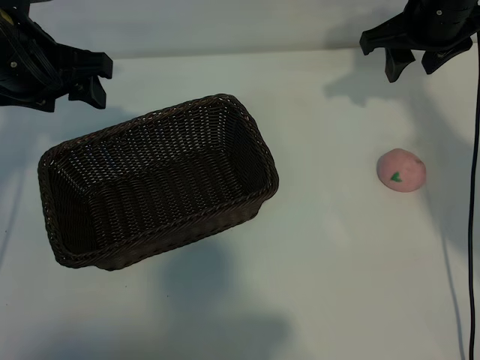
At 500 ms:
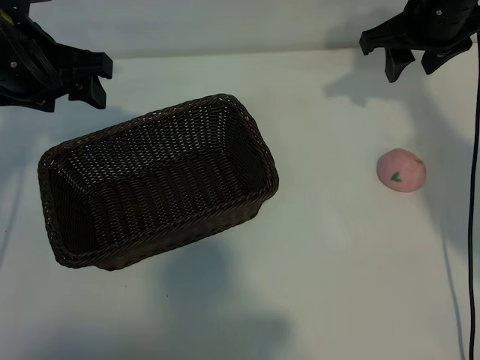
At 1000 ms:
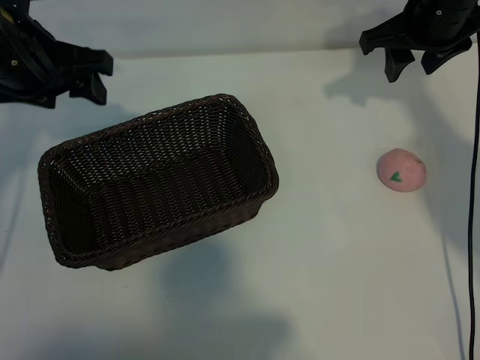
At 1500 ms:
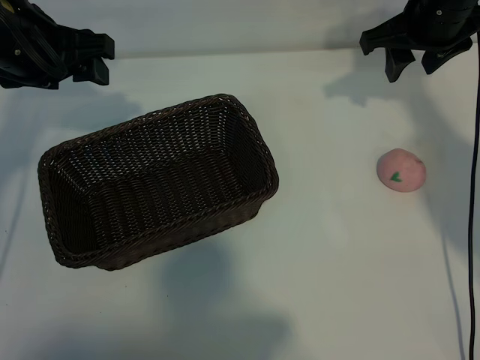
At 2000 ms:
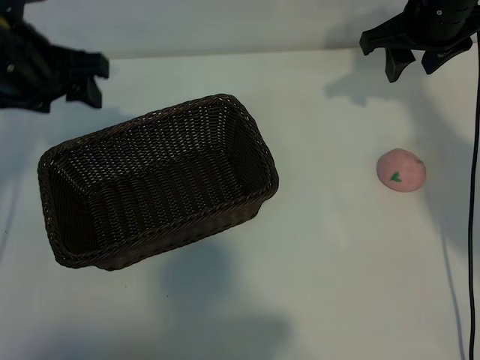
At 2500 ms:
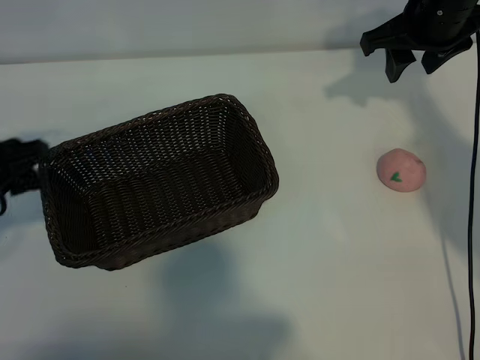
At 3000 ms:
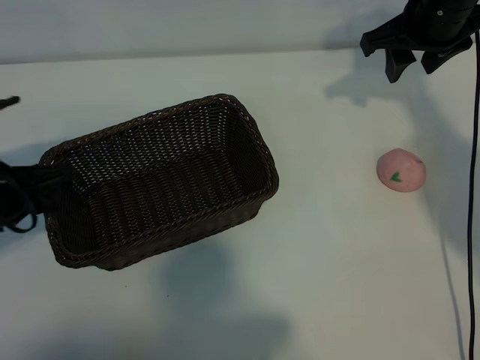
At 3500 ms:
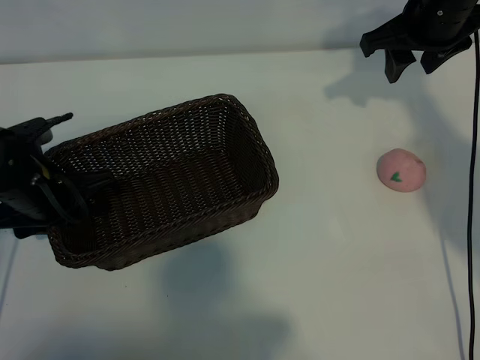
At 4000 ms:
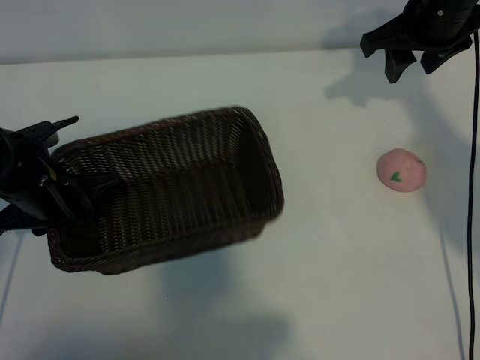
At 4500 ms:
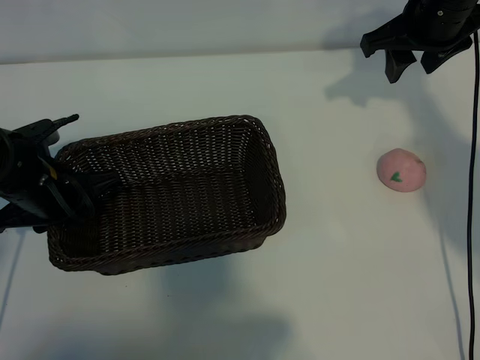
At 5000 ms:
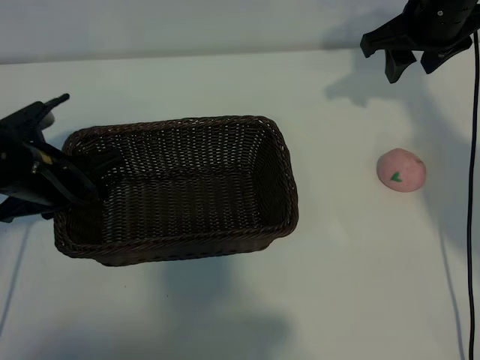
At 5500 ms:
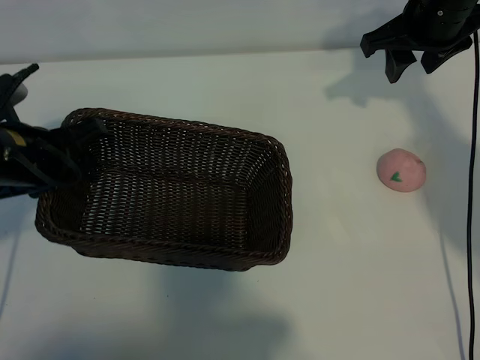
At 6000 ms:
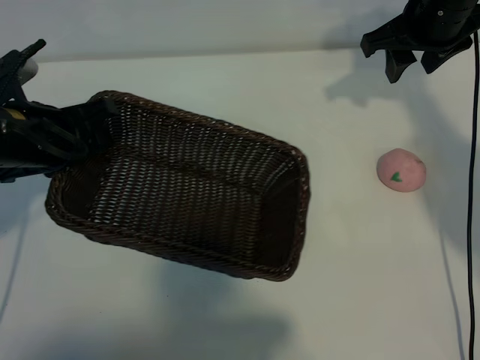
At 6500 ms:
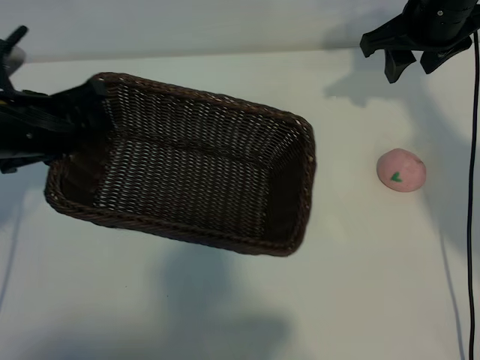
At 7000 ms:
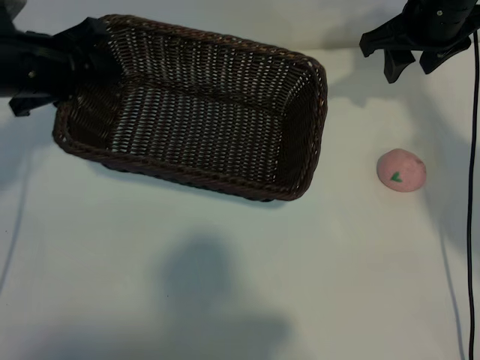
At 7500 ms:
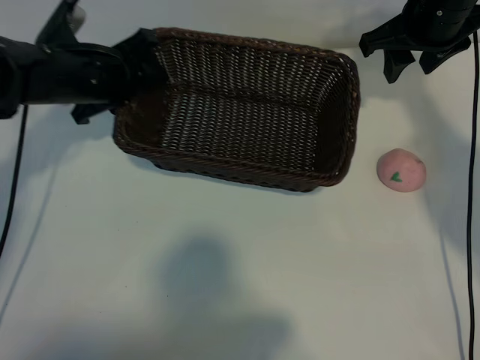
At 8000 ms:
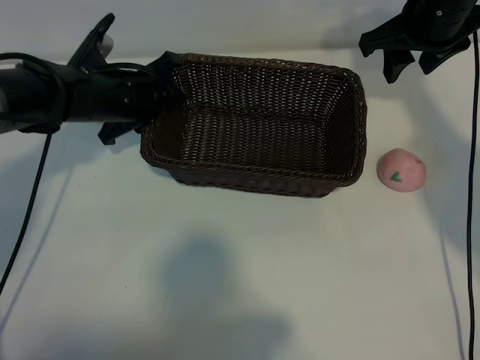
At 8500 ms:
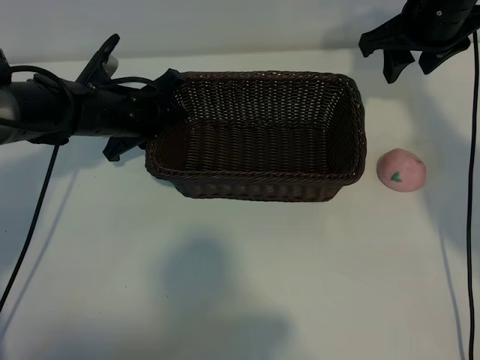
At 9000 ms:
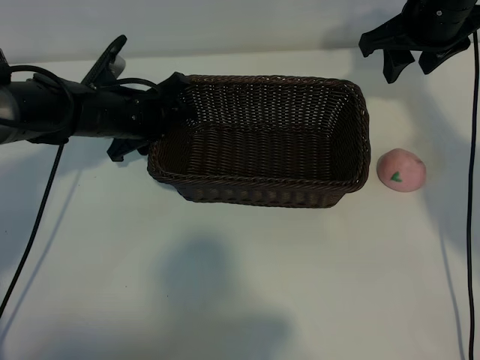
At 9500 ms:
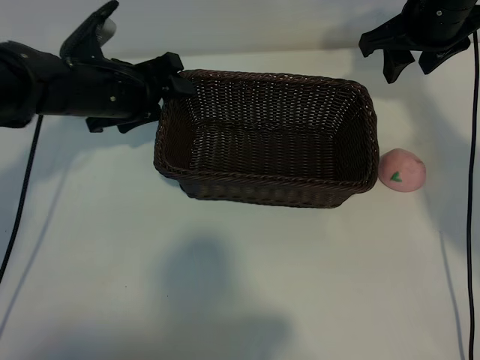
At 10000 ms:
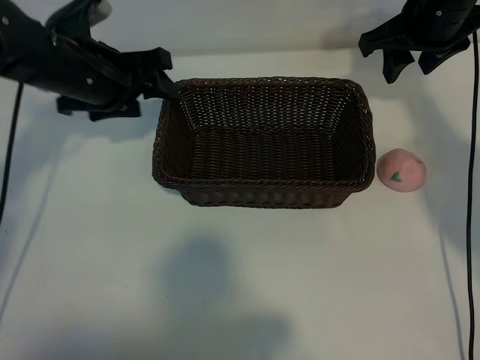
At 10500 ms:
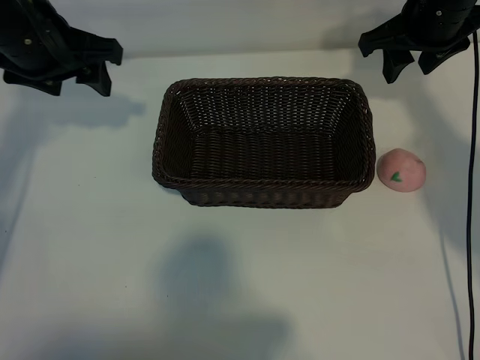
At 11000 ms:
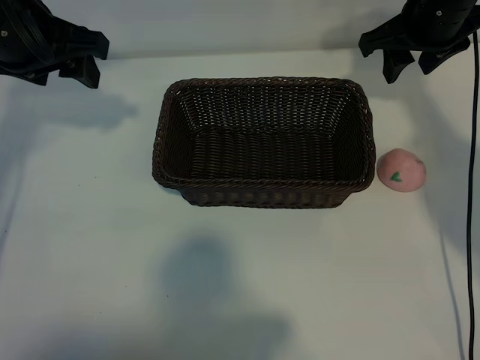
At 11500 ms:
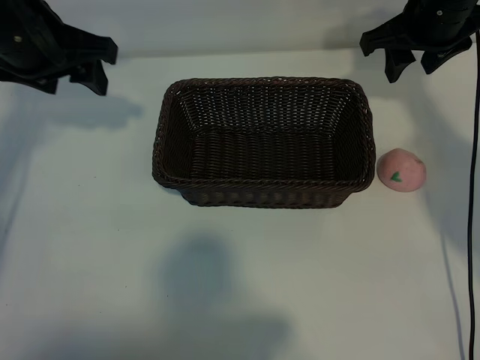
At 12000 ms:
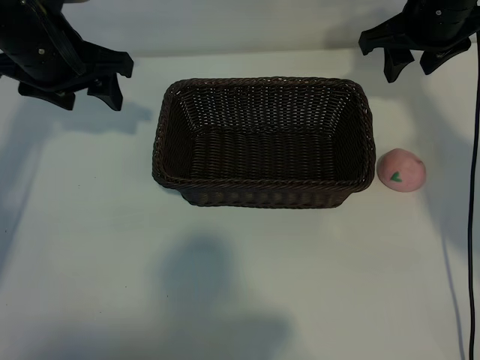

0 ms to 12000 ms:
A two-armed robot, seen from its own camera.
Task of the whole recording: pick up the peach and put it into the basket.
Step, 1000 ms to 4000 ms: Grasp the basket with left gripper.
Step, 4500 ms to 9000 ms: Place the basket in the center of view with left gripper.

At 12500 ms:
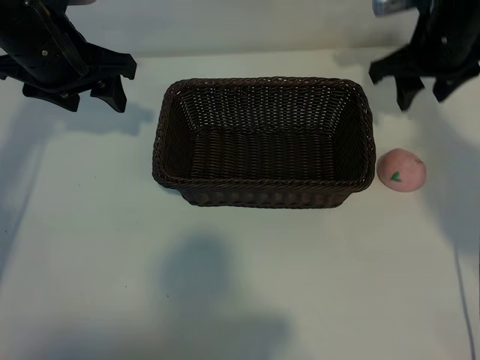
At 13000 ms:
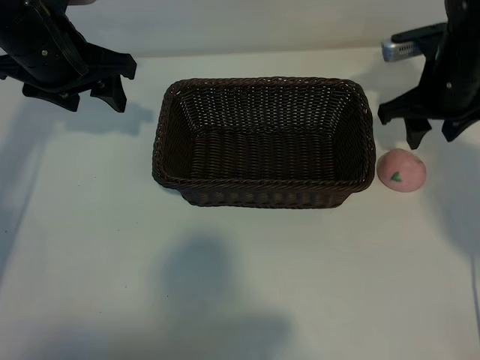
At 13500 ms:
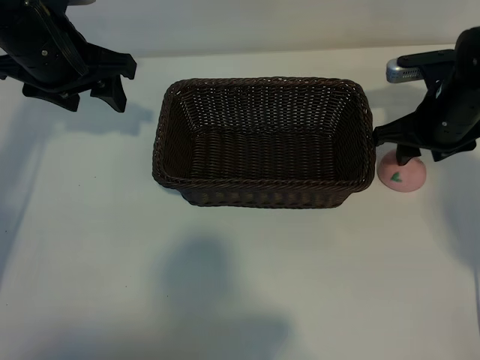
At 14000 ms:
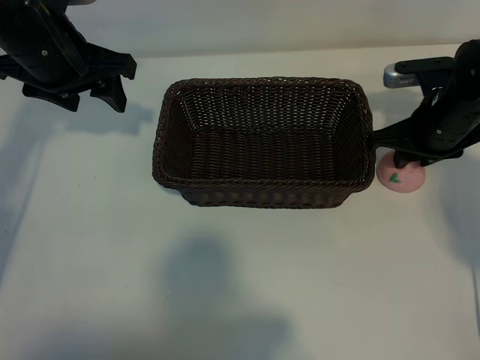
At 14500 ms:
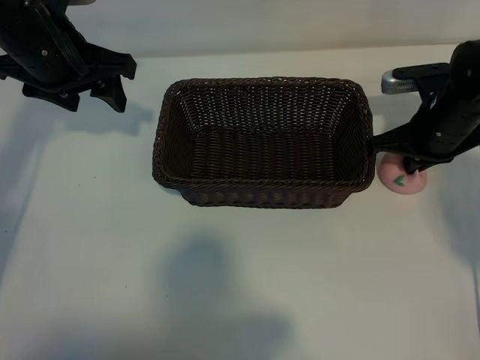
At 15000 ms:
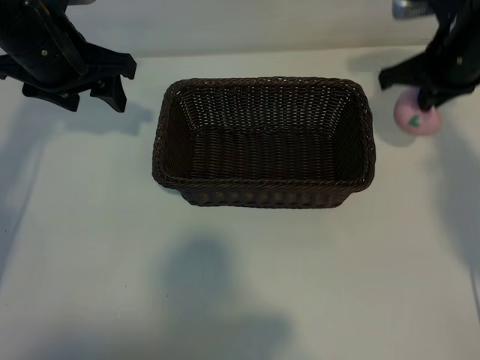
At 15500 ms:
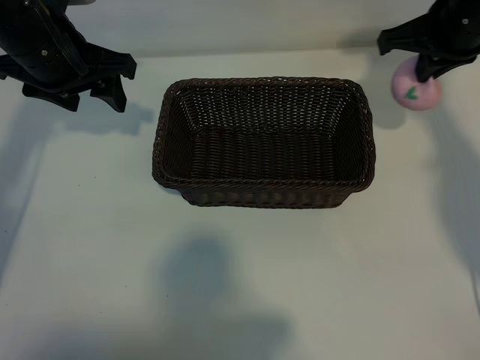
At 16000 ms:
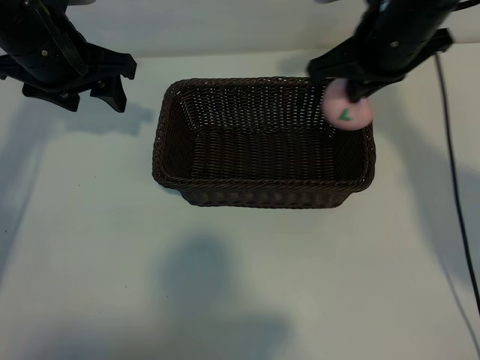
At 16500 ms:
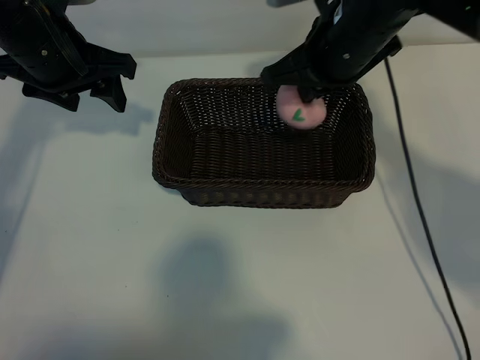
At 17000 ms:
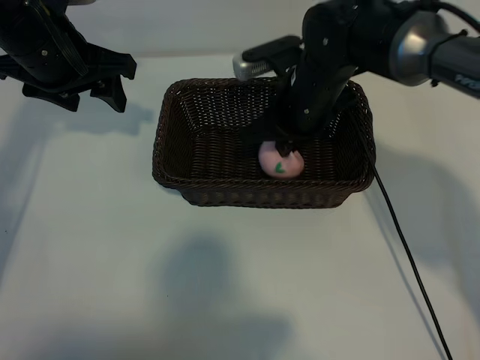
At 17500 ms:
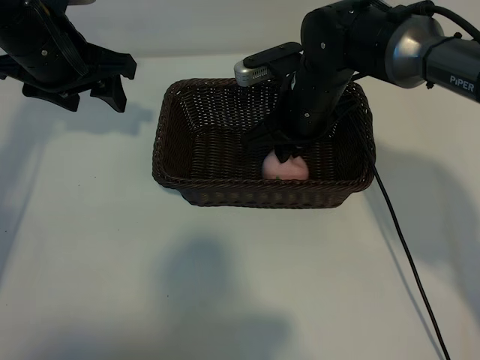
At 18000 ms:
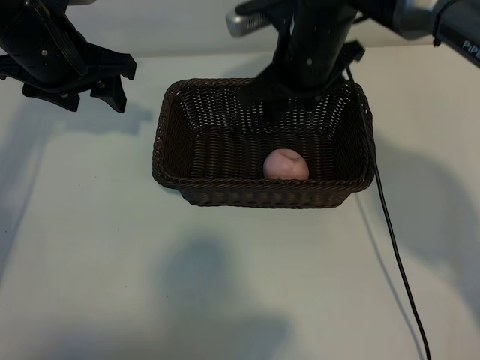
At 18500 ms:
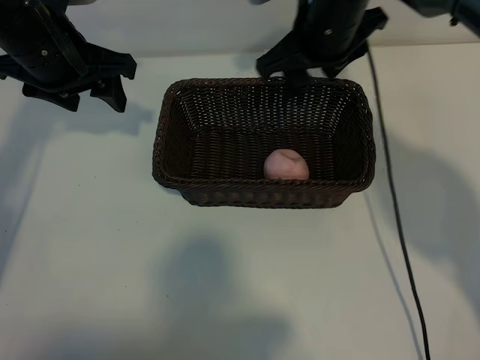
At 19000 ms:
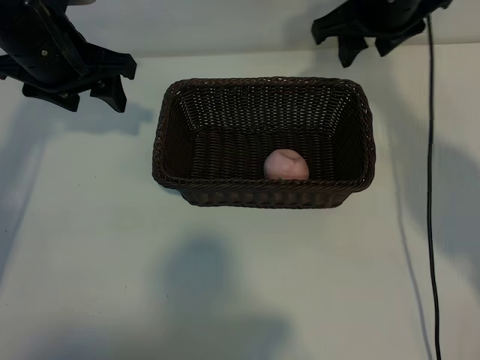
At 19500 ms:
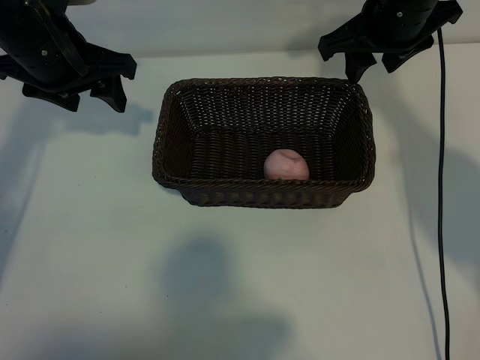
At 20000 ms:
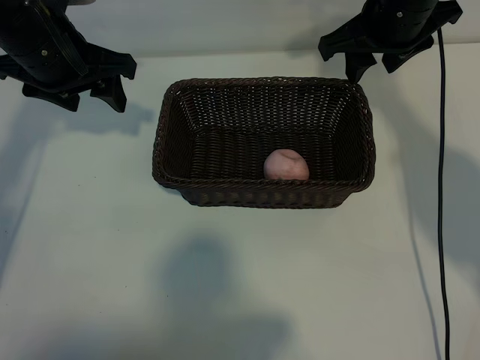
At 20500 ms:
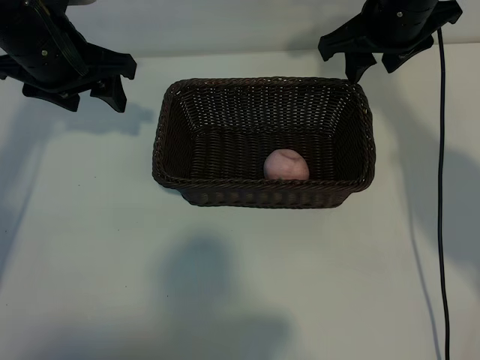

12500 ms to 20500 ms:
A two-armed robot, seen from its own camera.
Task of the whole recording: pick up the peach and put it into the basket.
Step, 14500 ms to 17500 ms: Place the peach in the basket with right gripper.

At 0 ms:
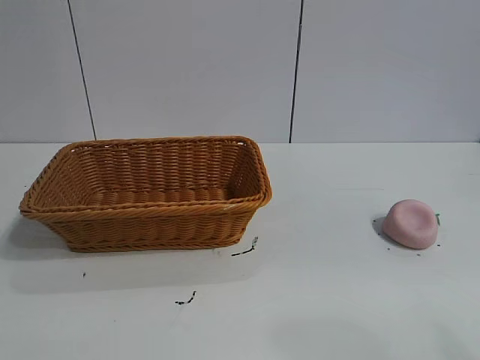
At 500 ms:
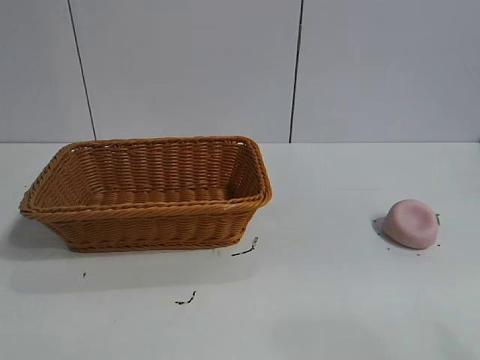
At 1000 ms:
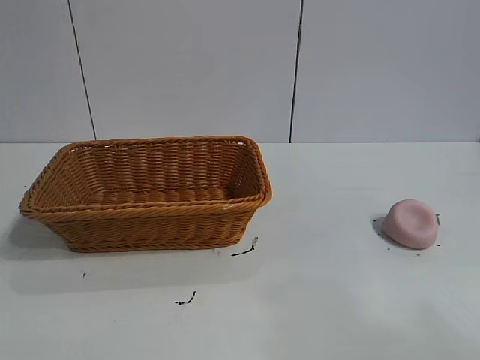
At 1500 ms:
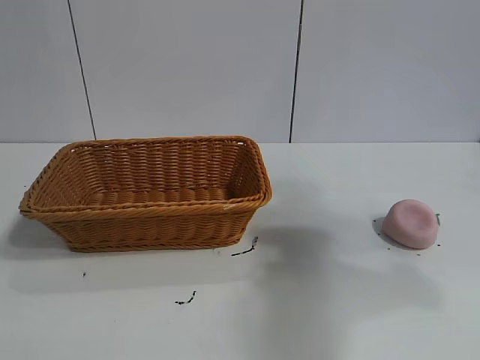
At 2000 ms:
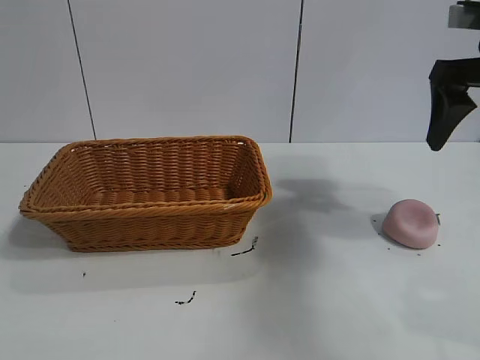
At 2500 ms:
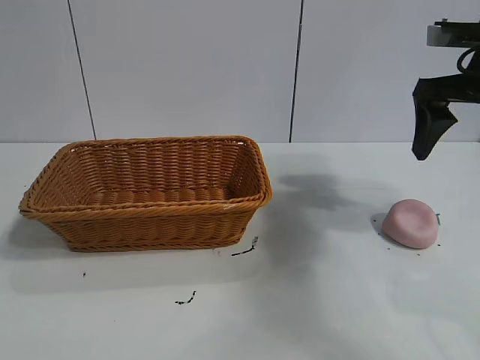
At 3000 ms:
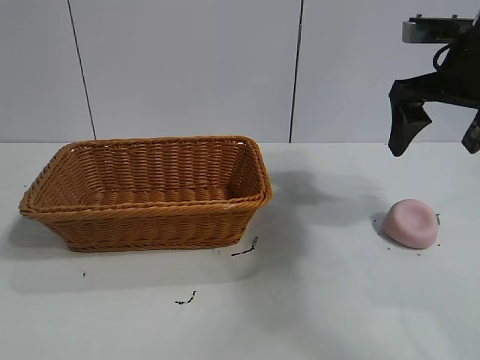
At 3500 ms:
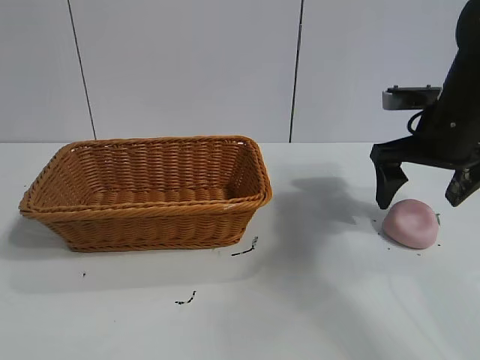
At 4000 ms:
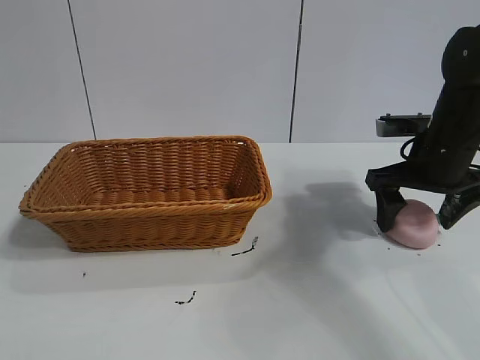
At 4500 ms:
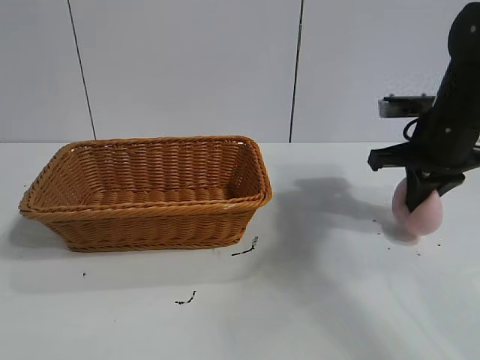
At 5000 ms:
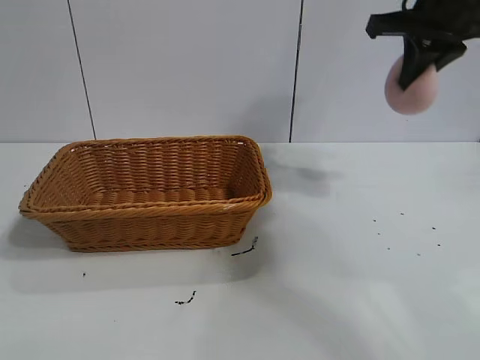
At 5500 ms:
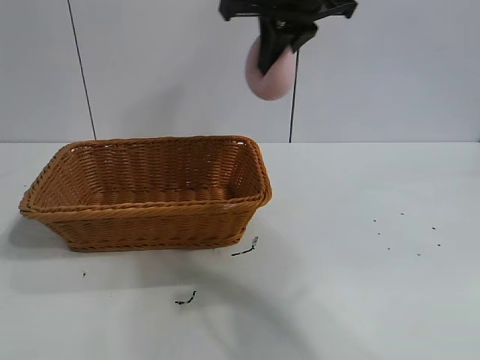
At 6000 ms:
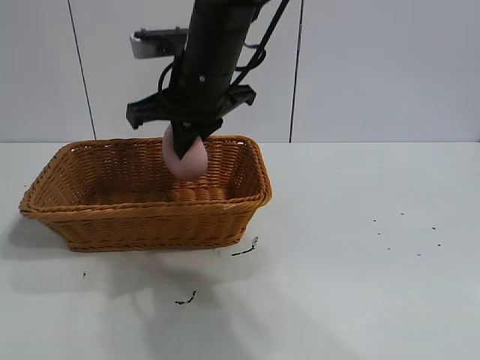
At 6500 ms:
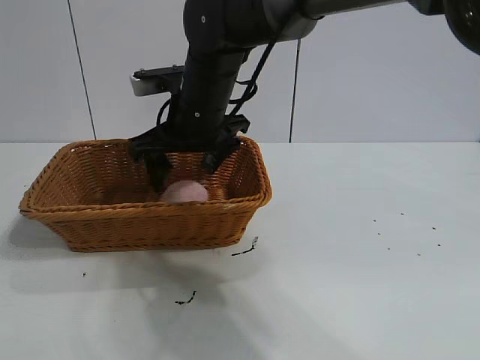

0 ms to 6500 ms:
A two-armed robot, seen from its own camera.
Task of the whole recording: pick up the peach and put it into the basket.
Step, 1000 ms to 4000 ms: Grasp the peach with right gripper.
